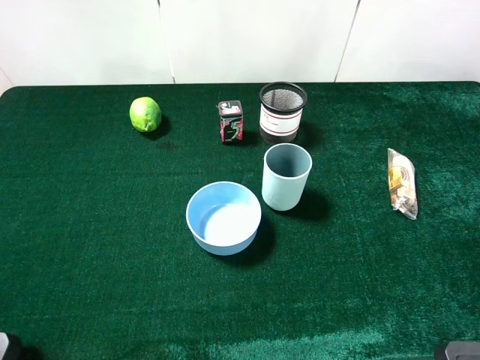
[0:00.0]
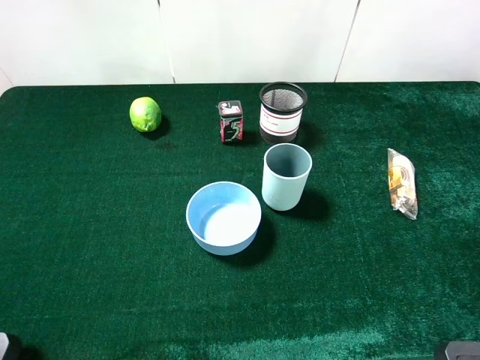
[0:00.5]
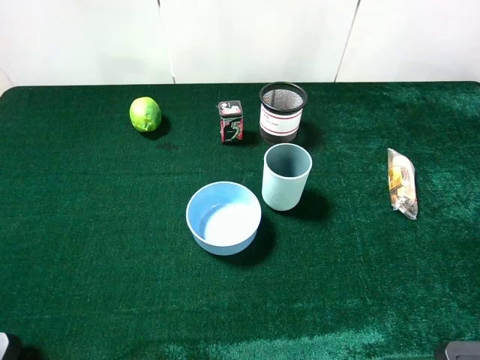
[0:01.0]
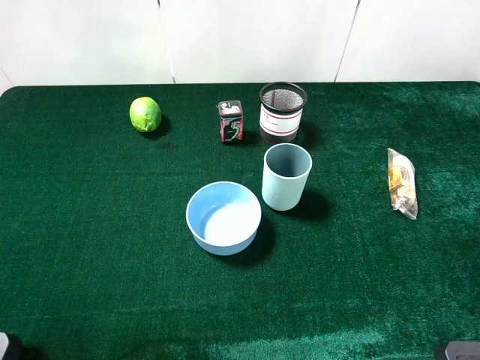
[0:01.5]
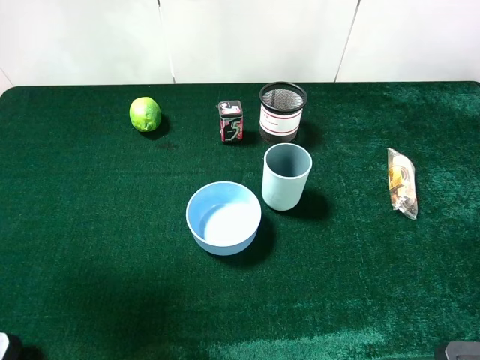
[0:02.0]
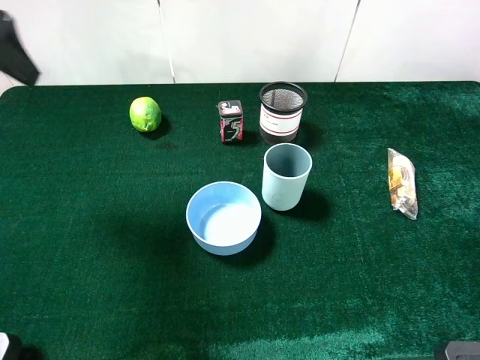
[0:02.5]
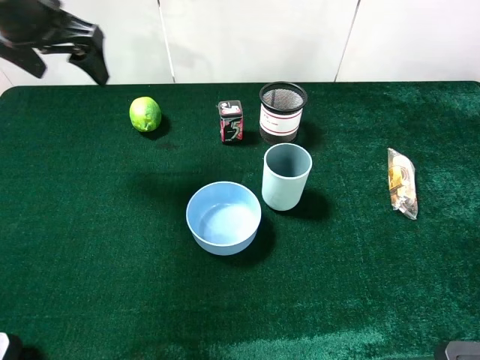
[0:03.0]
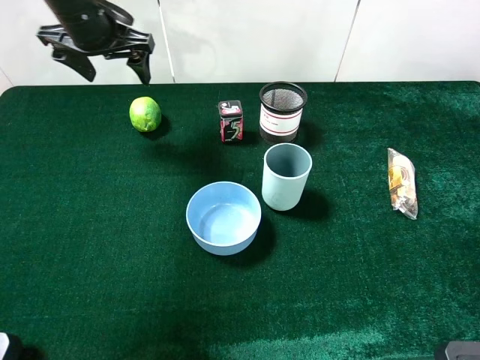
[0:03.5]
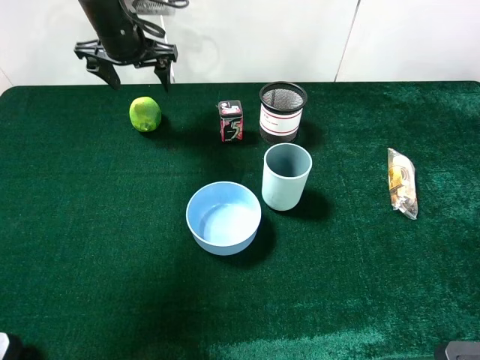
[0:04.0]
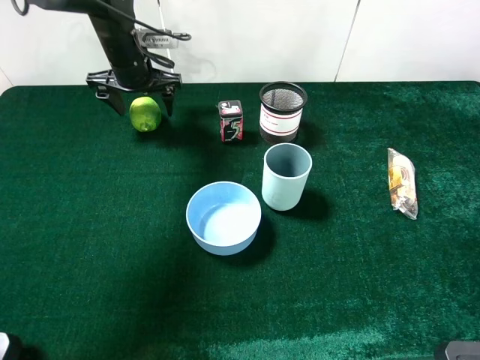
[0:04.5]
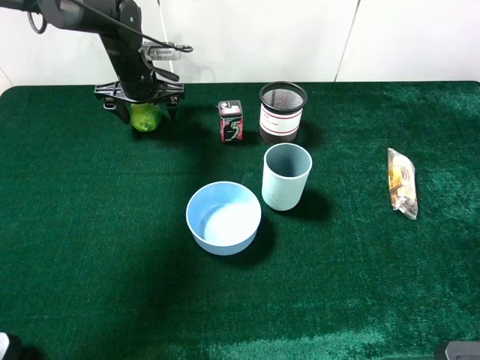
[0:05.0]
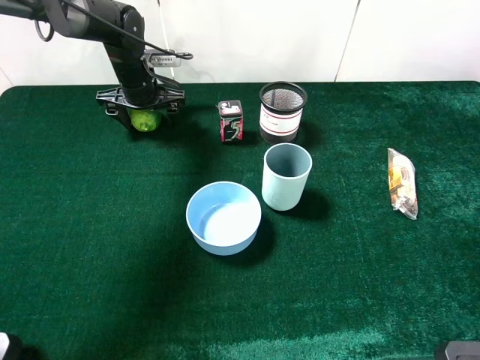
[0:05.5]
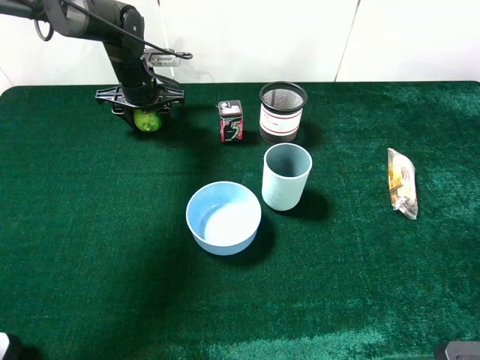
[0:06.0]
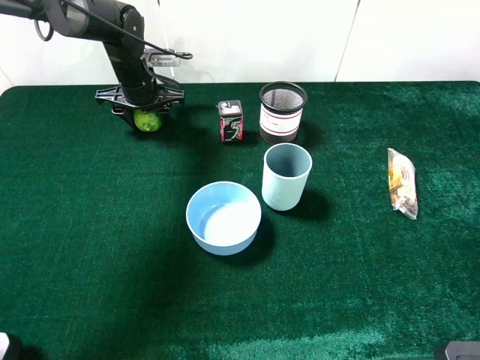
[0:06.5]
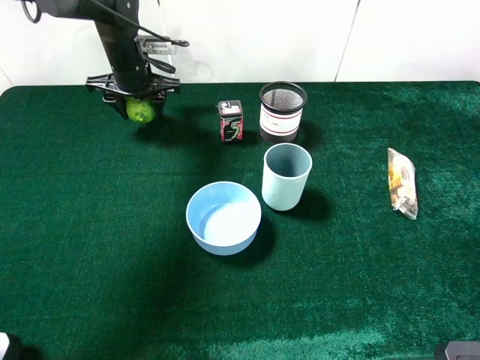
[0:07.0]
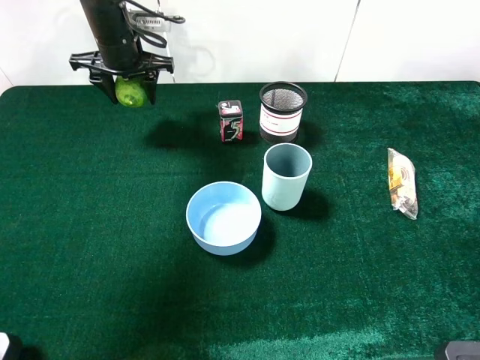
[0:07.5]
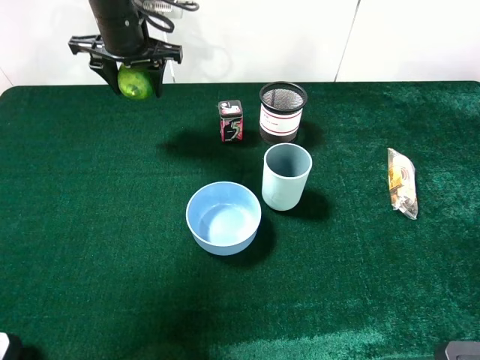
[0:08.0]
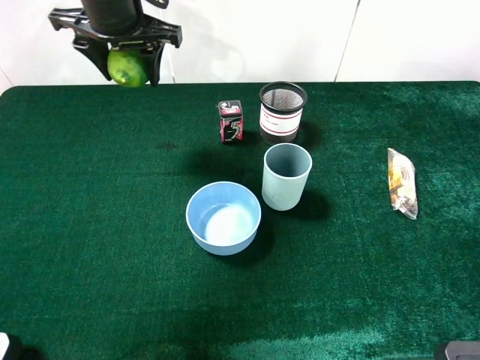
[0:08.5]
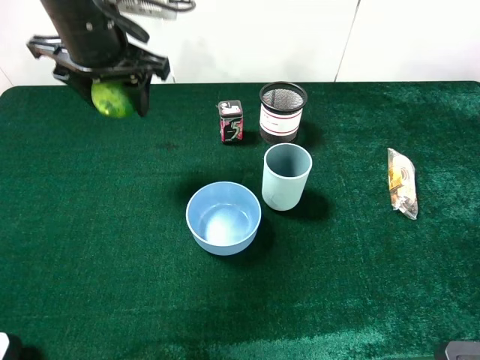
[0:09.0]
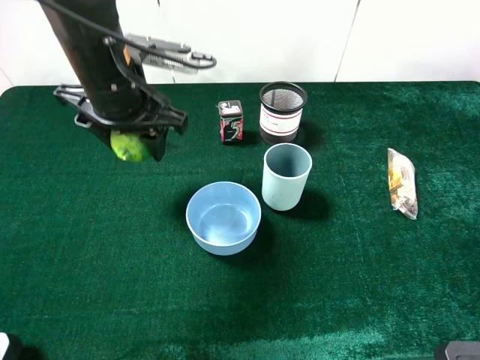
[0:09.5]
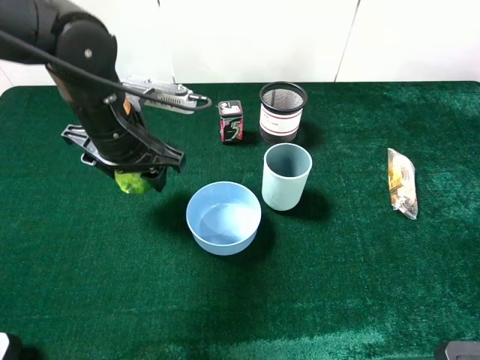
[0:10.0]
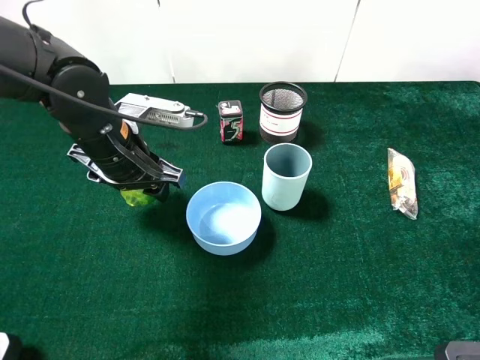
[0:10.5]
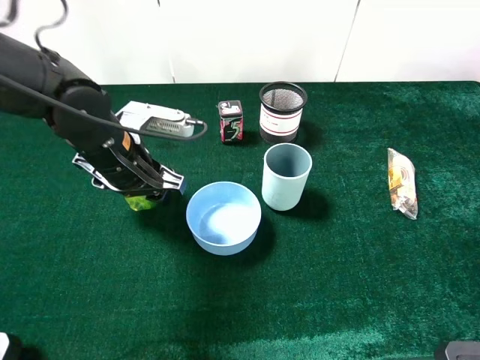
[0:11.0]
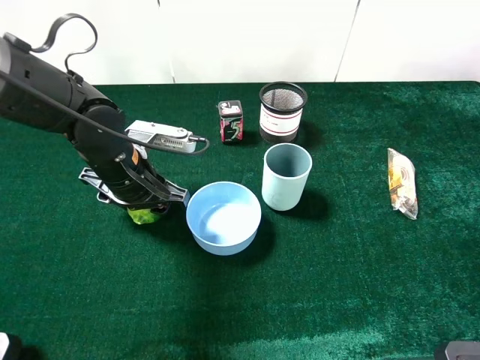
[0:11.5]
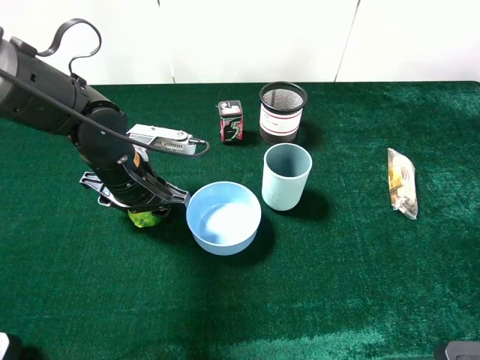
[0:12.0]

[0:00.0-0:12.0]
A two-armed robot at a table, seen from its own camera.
Task of the whole recording: the gripper move the object.
Step, 0:00.0 to 0:06.0: Grasp the green lemon with the left gripper.
0:00.0 to 0:02.0: The left gripper travels forward and upward by approximately 20 cm.
0:02.0 to 0:04.0: The left gripper moves forward, downward and to the right, some 35 cm.
0:04.0 to 0:06.0: The left gripper heads downward, covering roughly 10 cm, and closes.
0:06.0 to 0:08.0: The left gripper goes some 10 cm upward.
0:08.0 to 0:10.0: The left gripper moves backward, about 15 cm.
0:10.0 to 0:12.0: The left gripper moves downward, about 5 cm.

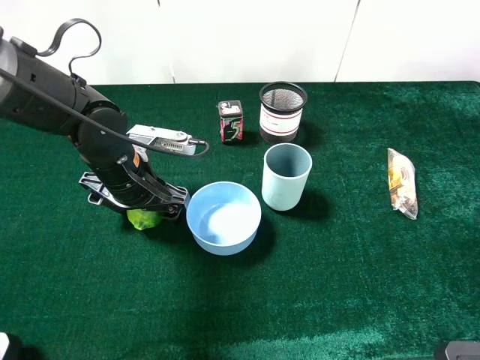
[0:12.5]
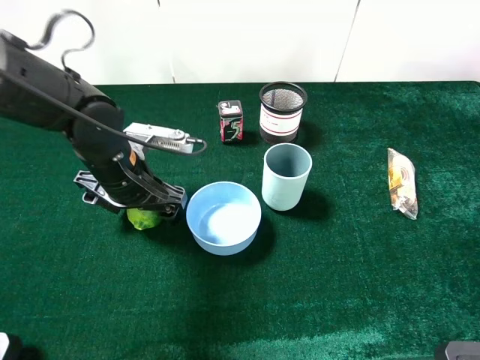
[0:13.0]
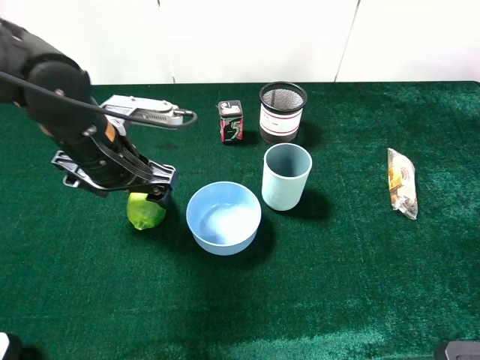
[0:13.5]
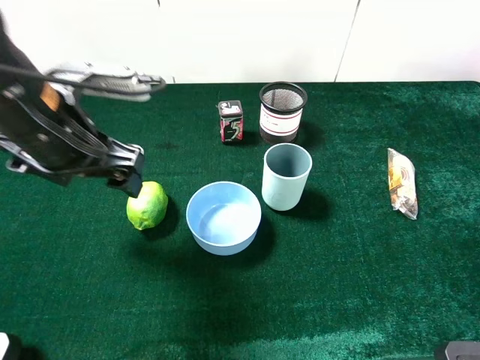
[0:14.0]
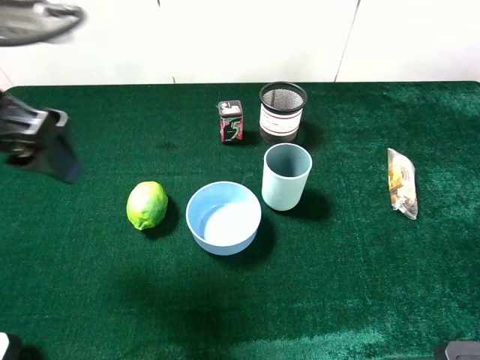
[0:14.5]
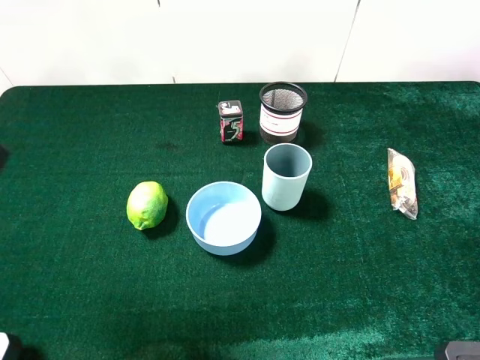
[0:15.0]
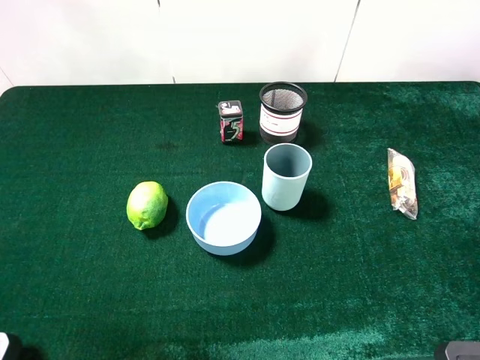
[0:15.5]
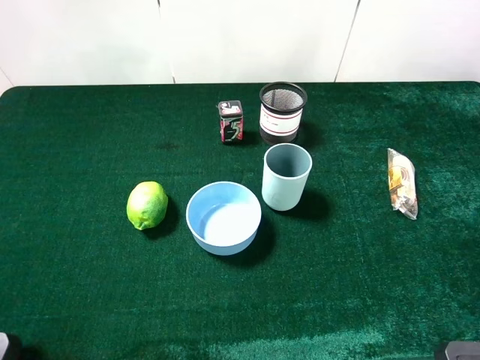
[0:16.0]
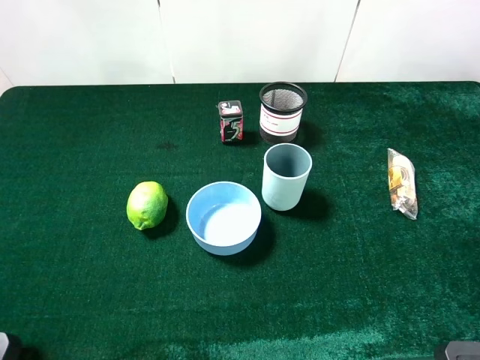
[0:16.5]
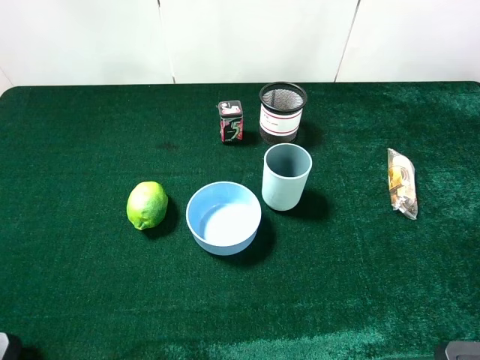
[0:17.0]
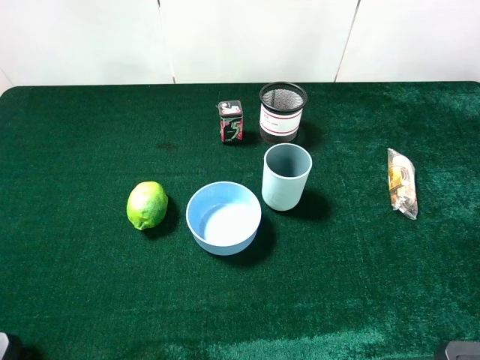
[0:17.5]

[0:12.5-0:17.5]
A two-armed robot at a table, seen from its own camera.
Task of the whole recording: the gripper move the object.
0:12.5 to 0:15.0: The left gripper moves upward, backward and to the left, some 30 cm.
0:15.0 to 0:17.5: The left gripper moves backward, downward and to the left, approximately 15 cm.

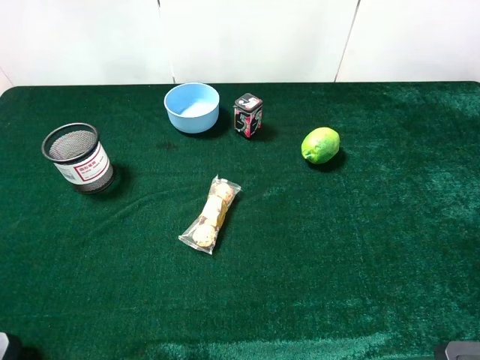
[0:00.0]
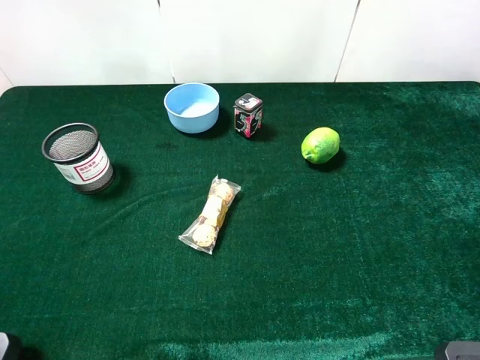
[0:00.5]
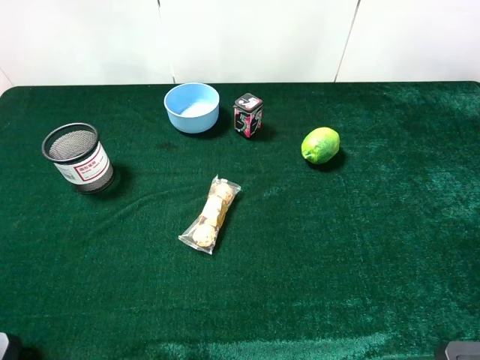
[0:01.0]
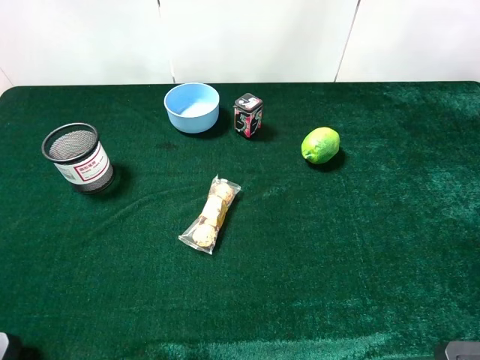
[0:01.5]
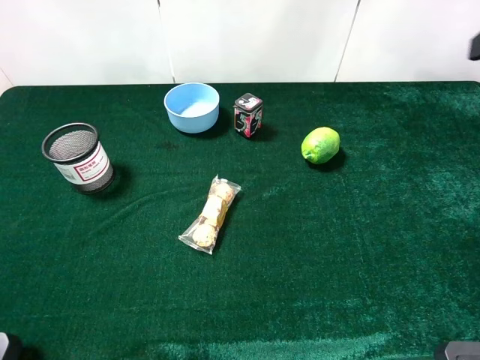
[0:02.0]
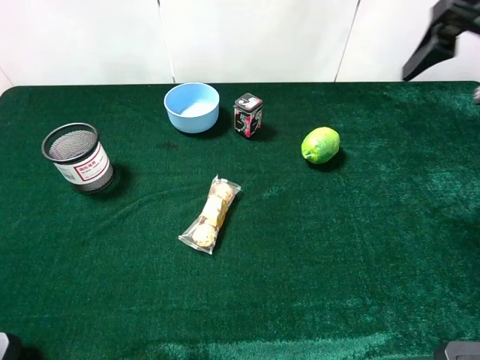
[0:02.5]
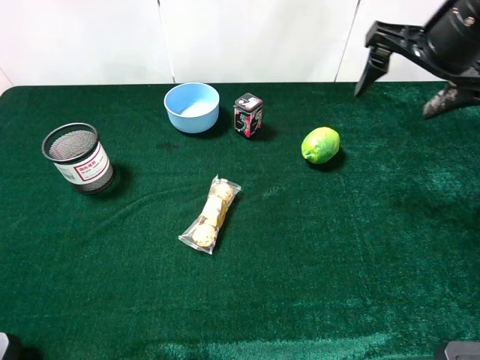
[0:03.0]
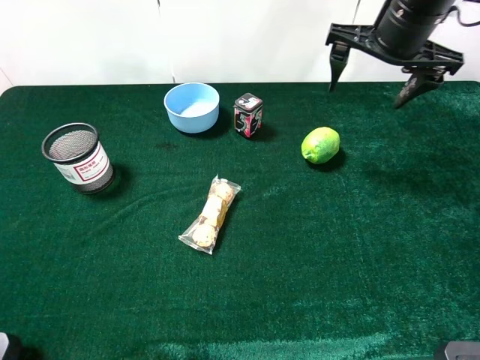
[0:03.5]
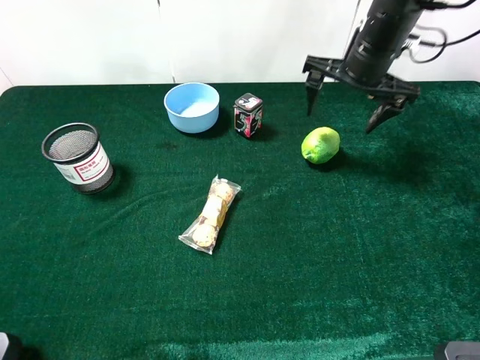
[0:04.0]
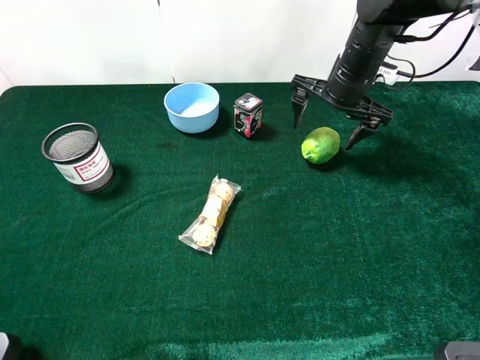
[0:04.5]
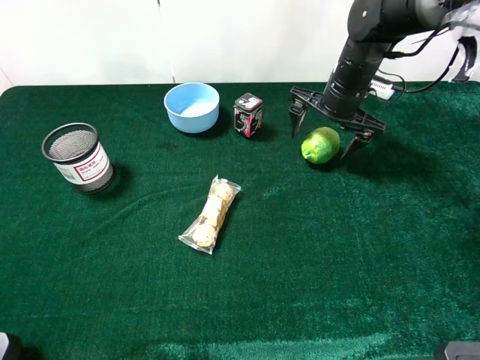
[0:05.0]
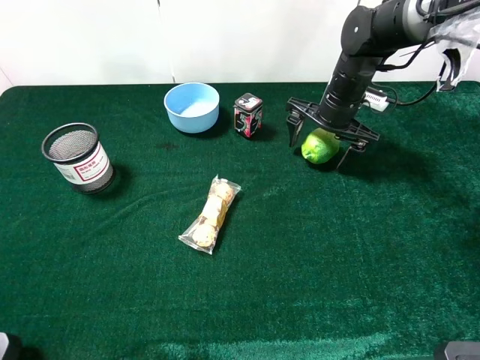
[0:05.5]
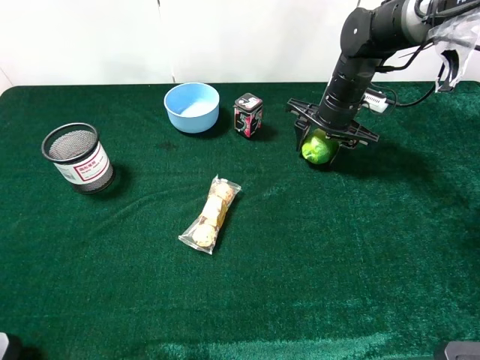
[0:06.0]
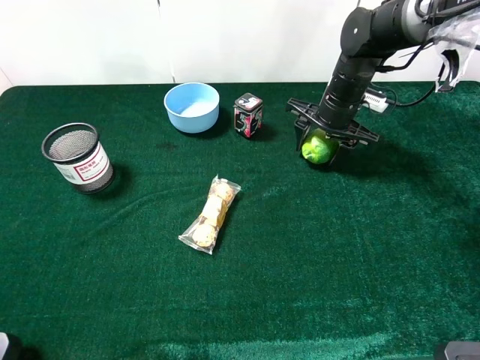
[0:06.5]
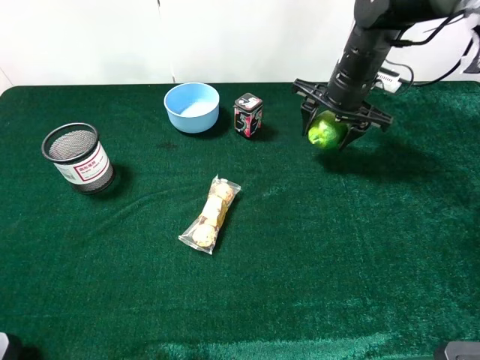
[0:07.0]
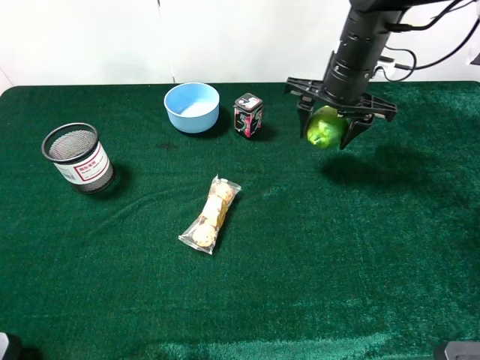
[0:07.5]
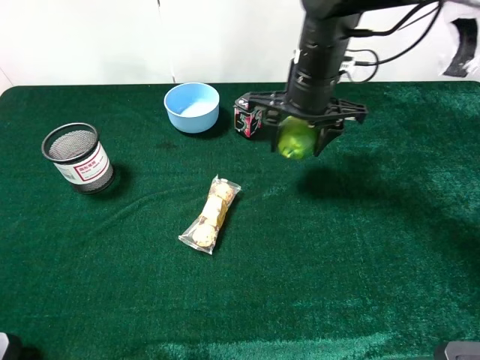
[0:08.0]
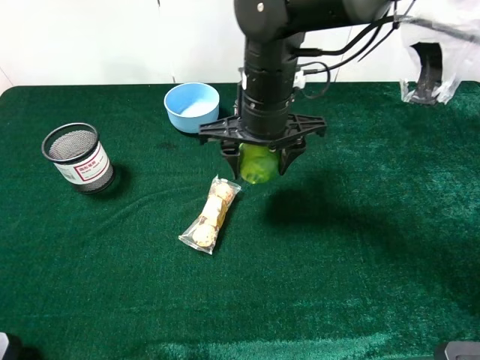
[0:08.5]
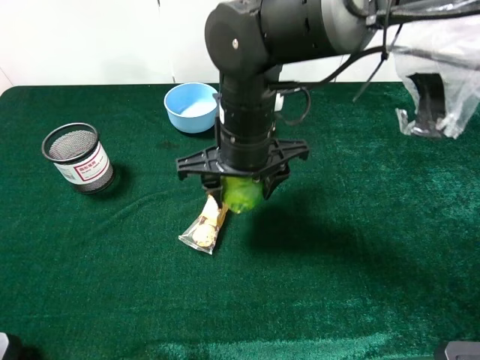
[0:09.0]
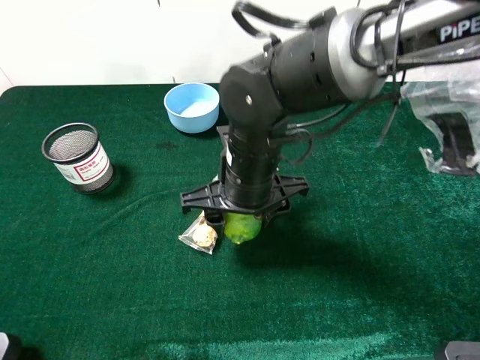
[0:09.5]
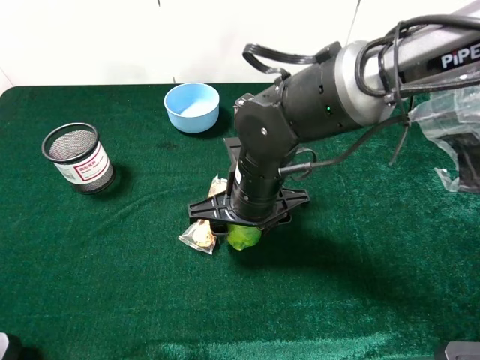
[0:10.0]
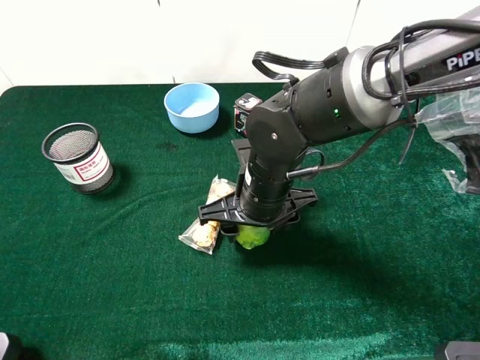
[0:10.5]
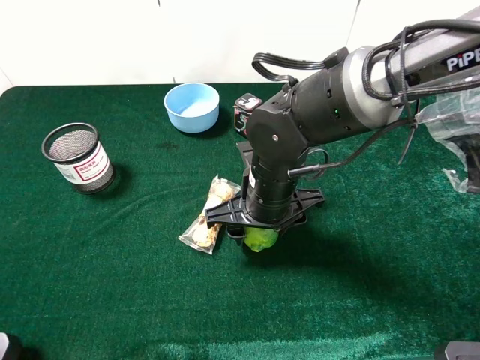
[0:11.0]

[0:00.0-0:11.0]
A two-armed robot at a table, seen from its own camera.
Task of the whole recording: the gripper move the object.
Step, 0:00.0 to 0:06.0: Grasp the green lemon with the right gripper.
0:02.0 to 0:03.5: The right gripper is displaced forward, downward and to the left by about 20 cm.
0:03.5 to 0:05.5: The right gripper goes approximately 15 cm downward.
0:05.5 to 0:07.5: The right gripper is displaced upward by about 5 cm, and closes.
0:07.5 to 0:09.0: The right gripper goes roughly 20 cm to the left and backward.
0:09.0 to 0:11.0: The right gripper moves downward, approximately 5 cm.
